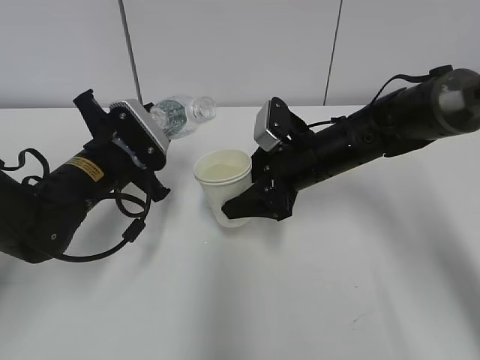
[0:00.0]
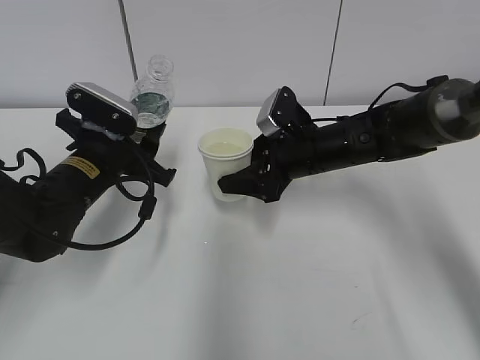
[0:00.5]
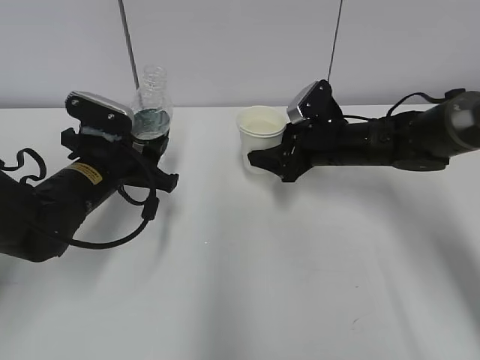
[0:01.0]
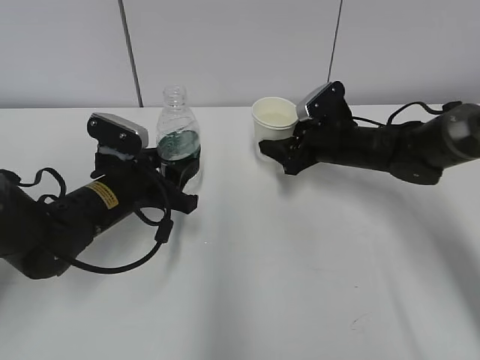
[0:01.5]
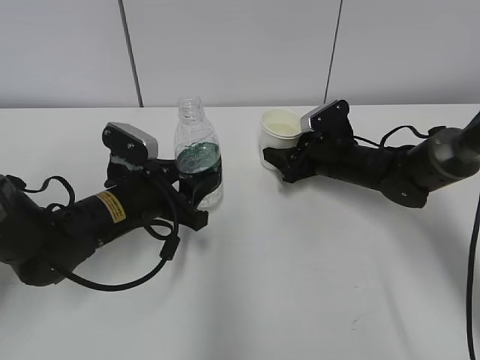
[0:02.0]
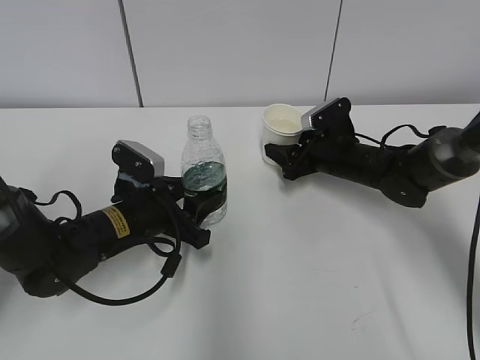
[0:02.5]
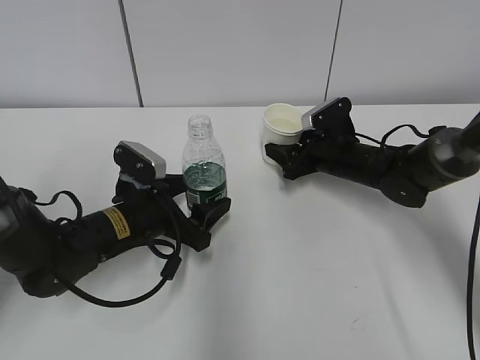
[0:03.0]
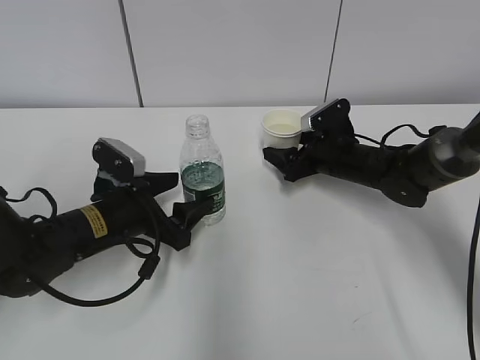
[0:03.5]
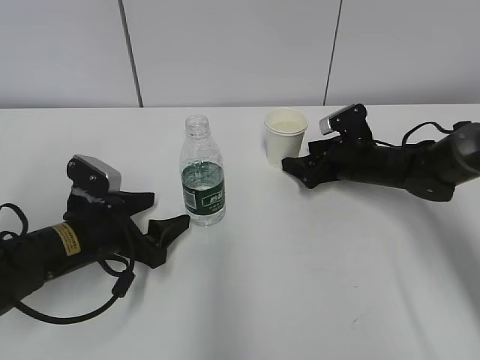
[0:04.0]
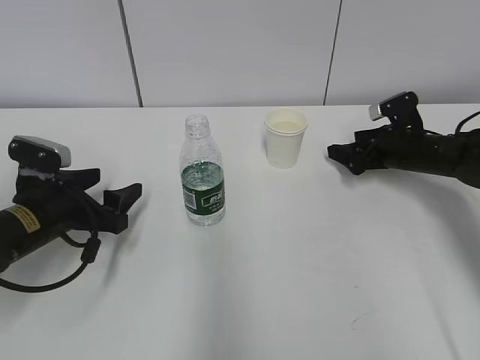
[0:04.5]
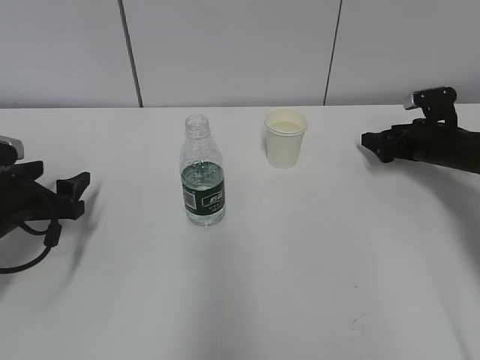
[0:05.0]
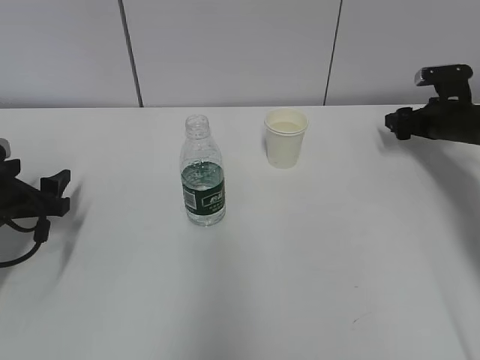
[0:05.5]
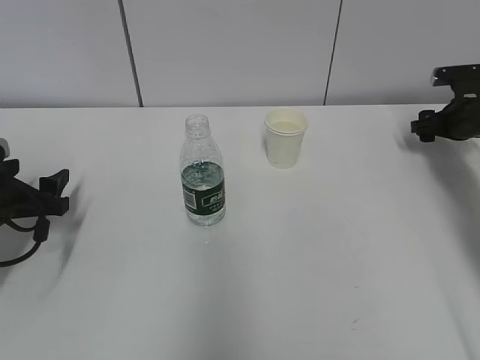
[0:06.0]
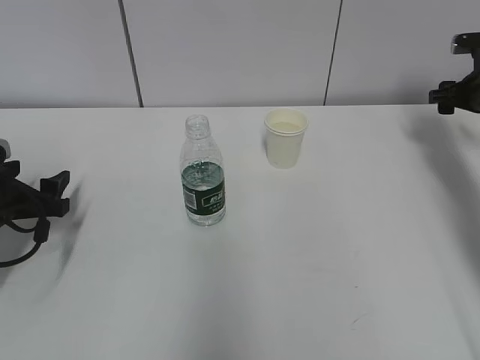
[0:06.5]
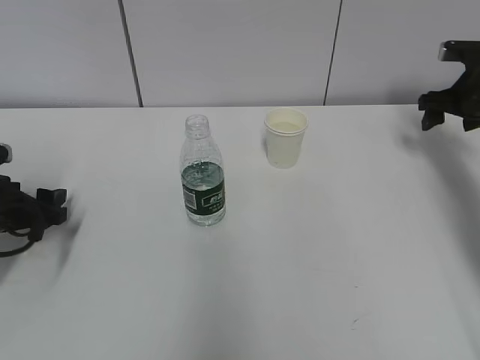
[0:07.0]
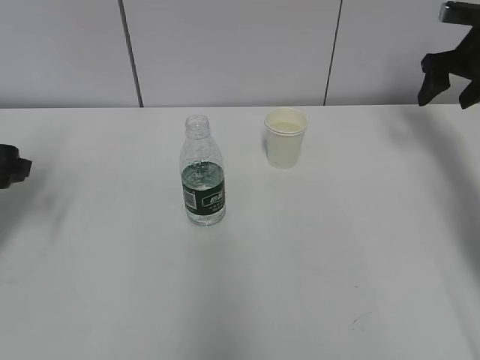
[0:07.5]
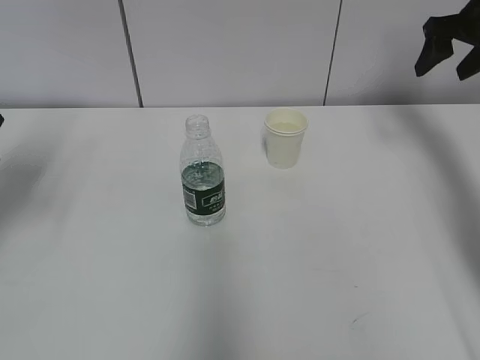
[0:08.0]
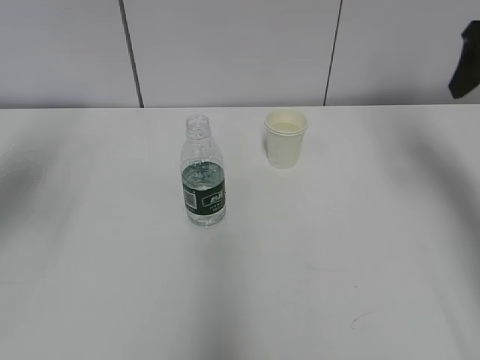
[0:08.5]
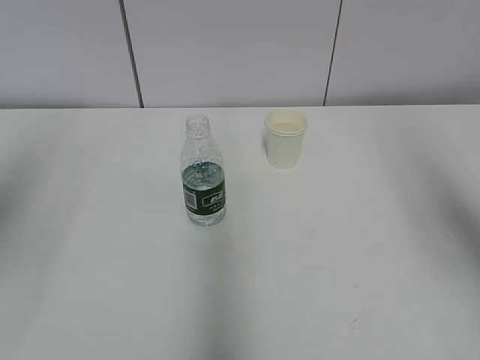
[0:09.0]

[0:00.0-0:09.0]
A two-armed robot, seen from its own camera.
0:00.0 to 0:02.0: The left gripper changes place by some 5 cm; the right gripper moves to the right, downward and forward, approximately 10 cm.
0:02.0 to 0:04.5: The left gripper goes approximately 10 cm to the left, and opens its fingers. The right gripper shifts about 10 cm to the right, and opens up.
0:04.5 to 0:07.0: The left gripper shifts roughly 10 cm to the left; the right gripper heads upward and to the right, covering about 15 cm.
0:07.0 to 0:09.0: The left gripper is displaced upward and backward by approximately 30 cm. Meanwhile the right gripper shifts about 35 cm backward and upward.

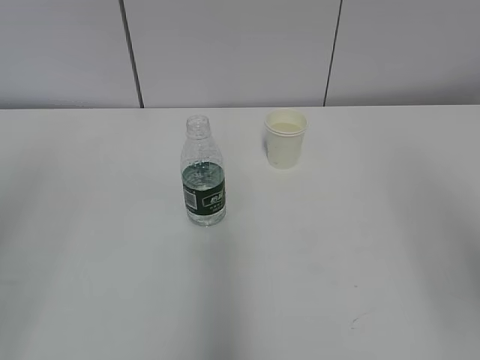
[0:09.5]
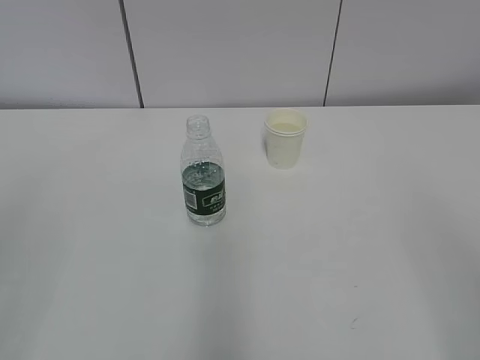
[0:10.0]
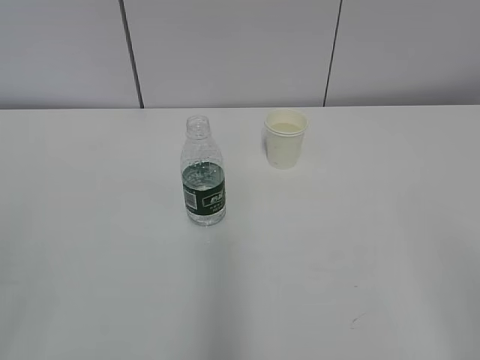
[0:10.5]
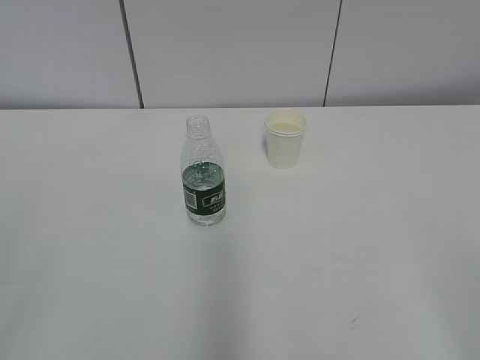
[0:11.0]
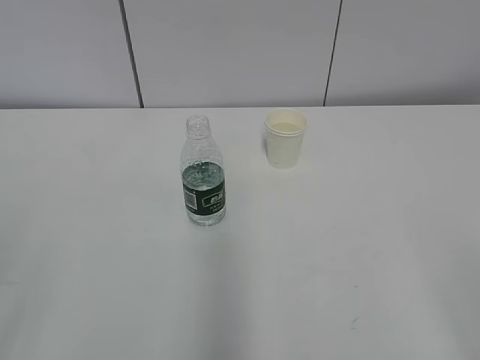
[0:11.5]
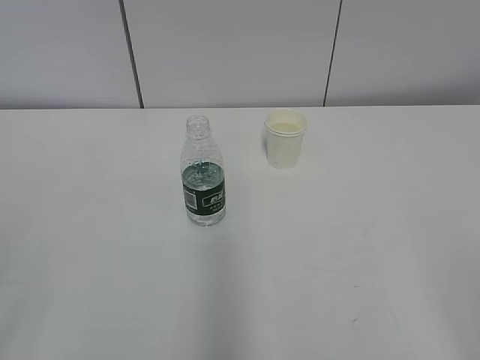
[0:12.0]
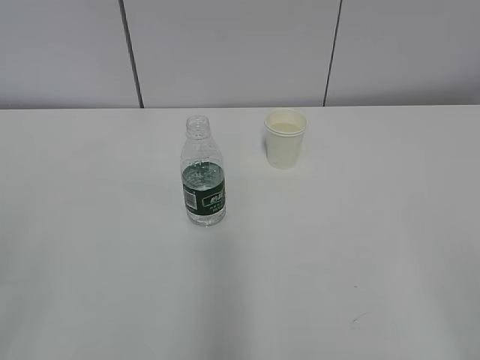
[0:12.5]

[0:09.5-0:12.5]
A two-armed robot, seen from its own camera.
0:11.0 to 0:12.5: Both grippers stay about where they are.

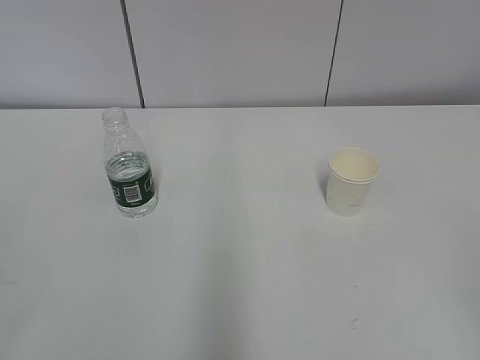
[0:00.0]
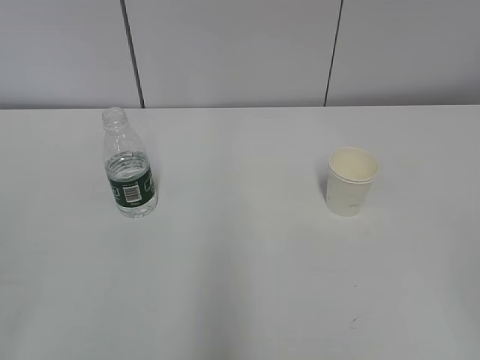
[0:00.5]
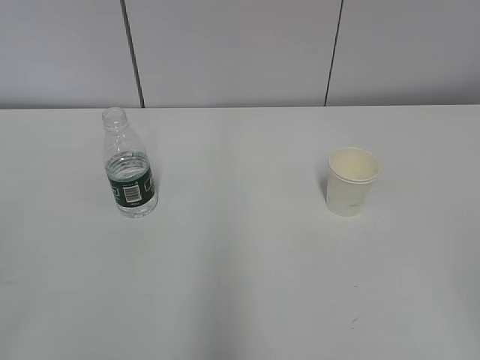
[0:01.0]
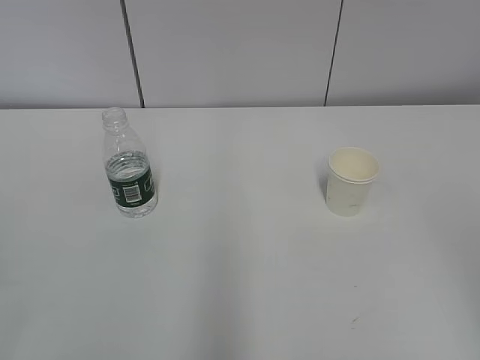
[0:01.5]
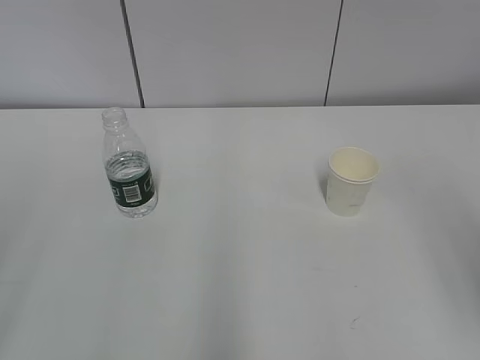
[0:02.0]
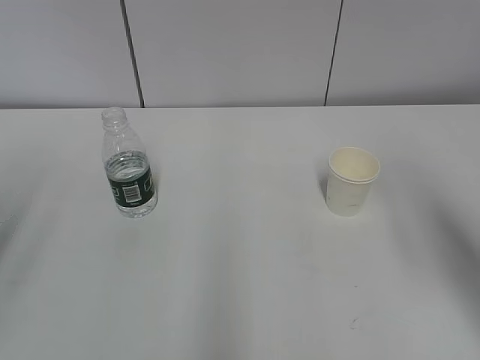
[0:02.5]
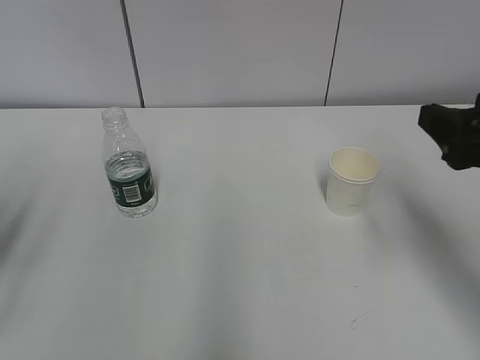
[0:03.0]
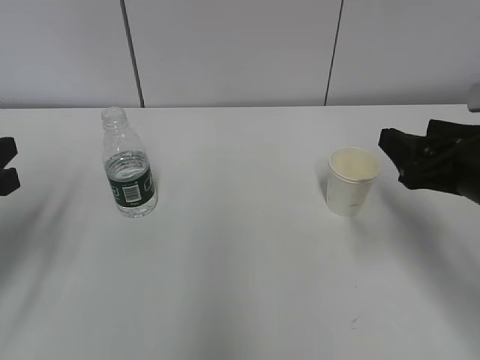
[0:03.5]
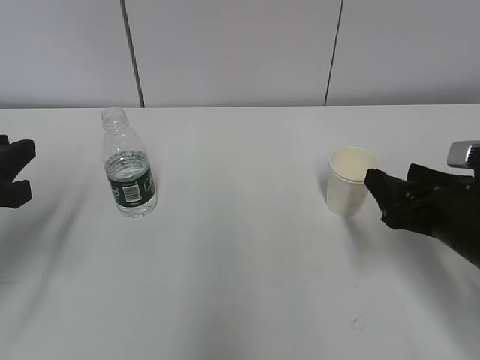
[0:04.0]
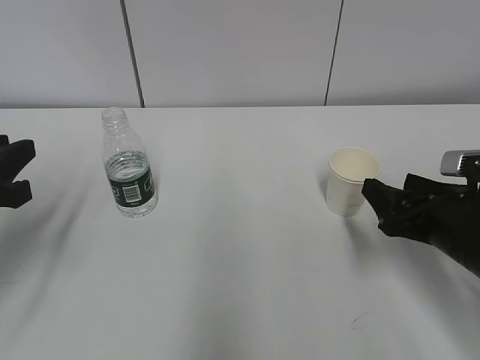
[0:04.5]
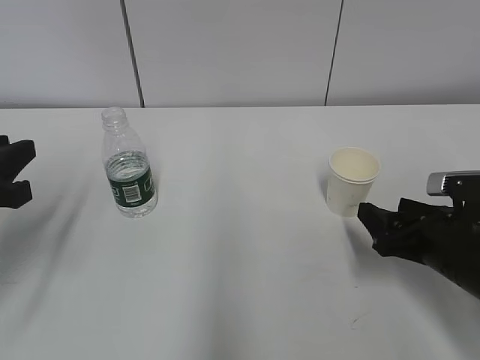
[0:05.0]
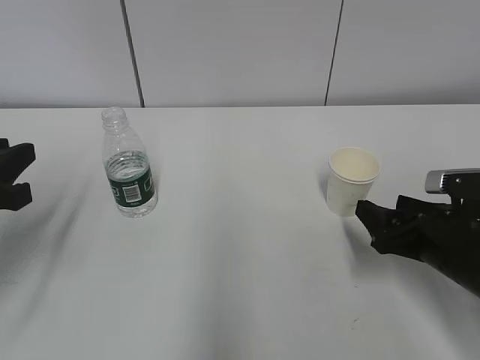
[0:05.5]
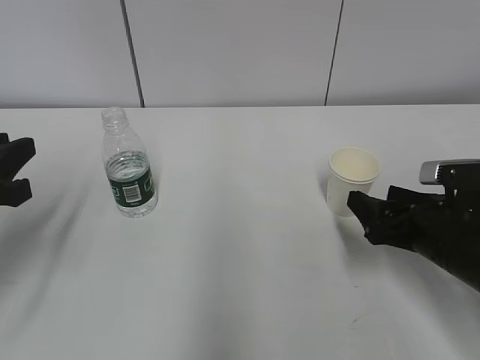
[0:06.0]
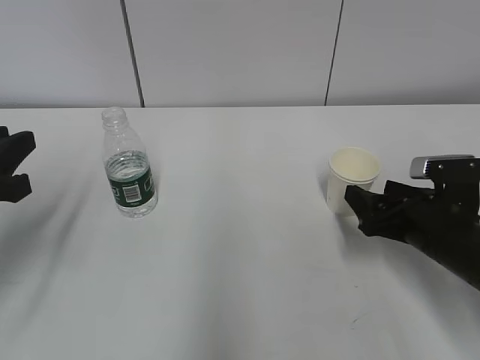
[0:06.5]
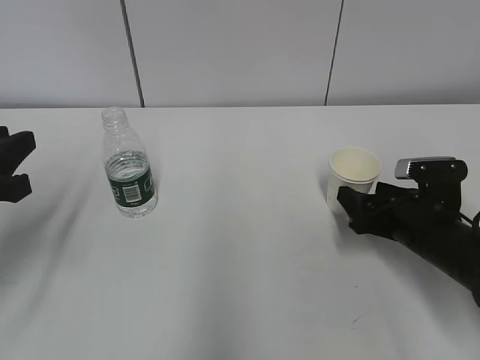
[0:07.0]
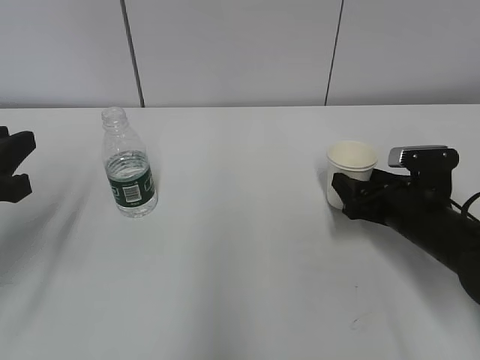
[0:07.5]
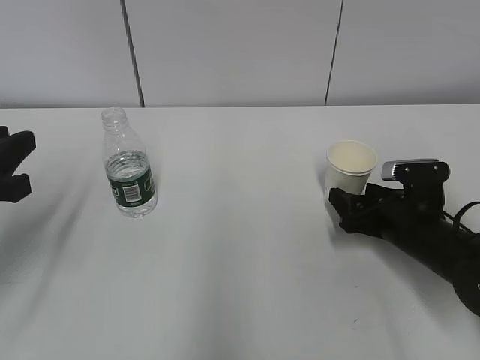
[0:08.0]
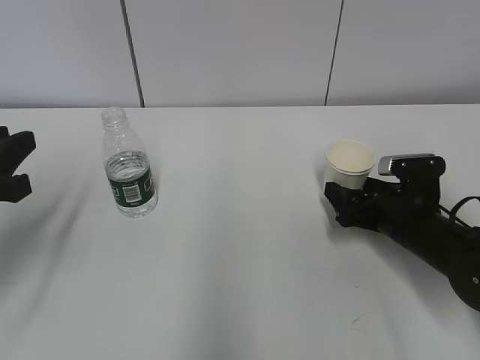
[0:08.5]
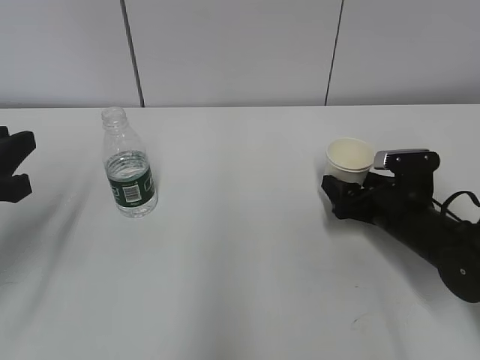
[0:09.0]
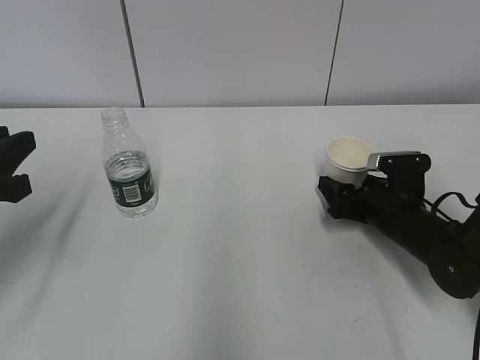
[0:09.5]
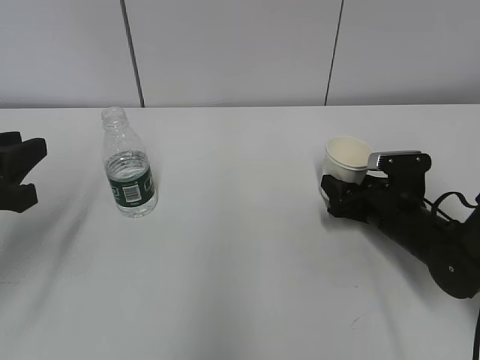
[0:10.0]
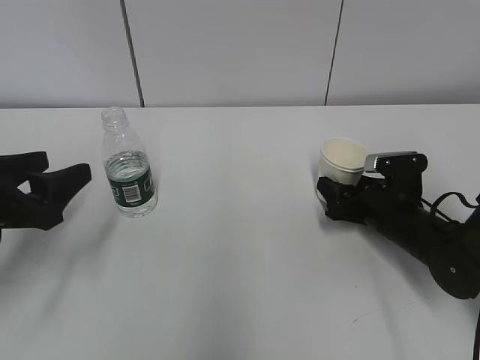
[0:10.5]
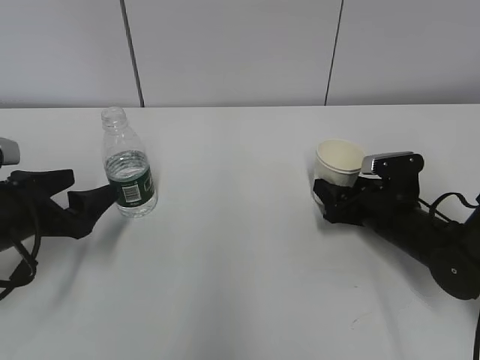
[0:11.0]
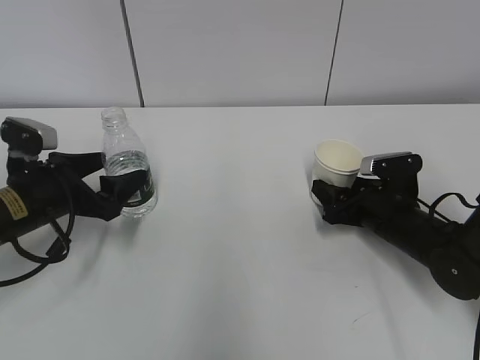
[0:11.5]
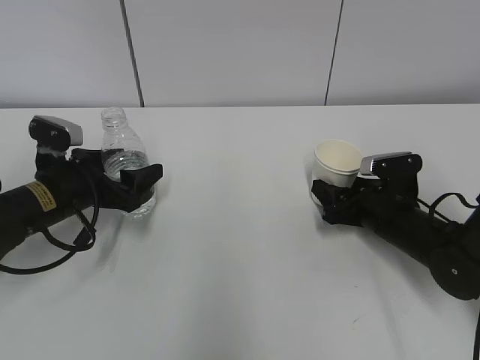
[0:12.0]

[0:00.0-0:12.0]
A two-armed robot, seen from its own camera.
Step, 0:00.0 to 0:08.5: Grab the paper cup with the right hand.
Step, 0:09.0 to 0:11.0: Grab the water bottle with the left hand.
0:02.0 to 0:04.0: The right gripper shifts roughly 25 cm downward and forward, while the left gripper heads forward and downward, covering about 20 cm.
0:04.0 to 0:06.0: The grippers make only small movements.
0:06.0 to 0:08.0: The right gripper is displaced forward by about 5 cm.
0:08.0 to 0:10.0: The right gripper closes.
0:10.0 to 0:12.0: The left gripper is displaced forward, downward and to the right by roughly 15 cm, and opens up.

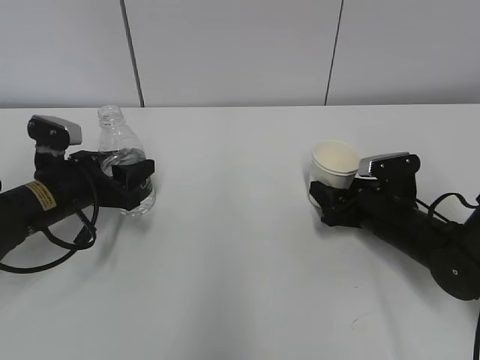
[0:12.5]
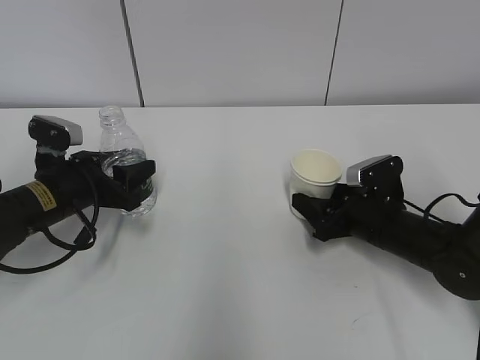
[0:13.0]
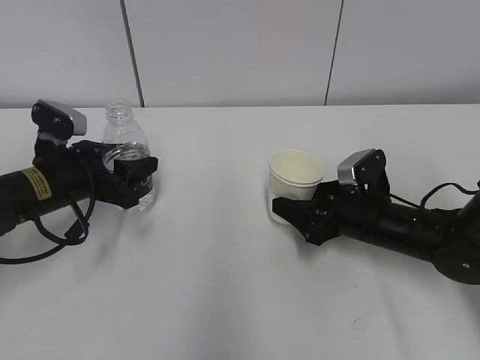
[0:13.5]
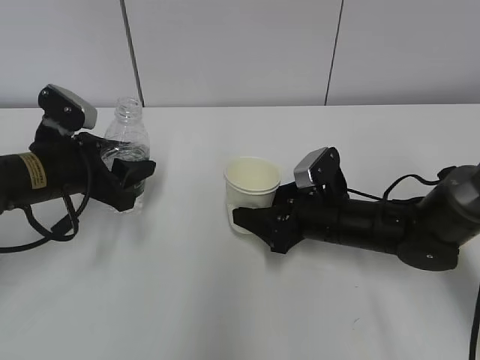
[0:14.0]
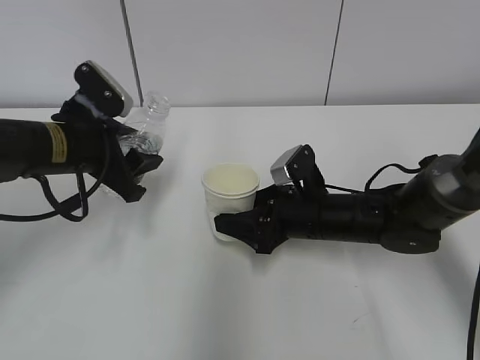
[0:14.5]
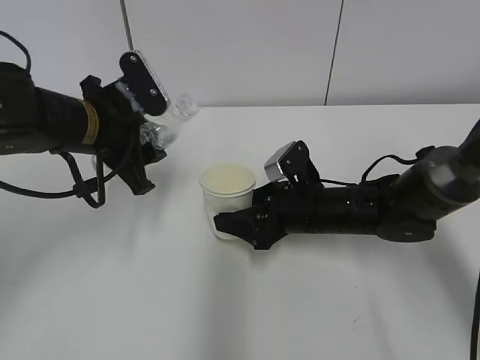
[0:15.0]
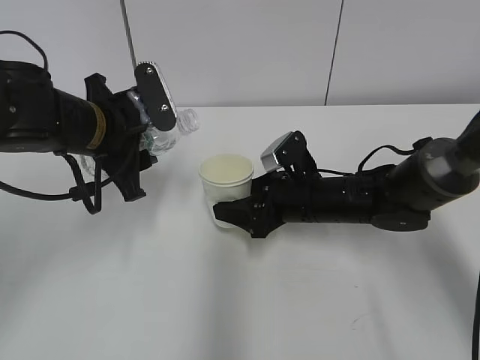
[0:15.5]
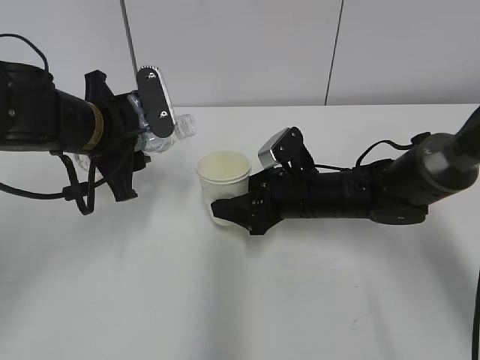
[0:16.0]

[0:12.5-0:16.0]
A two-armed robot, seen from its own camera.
Step, 0:12.5 to 0:14.5: Lift the paper cup with the right hand.
0:12.5 to 0:14.5: The left gripper travels upward by roughly 10 cm. The right gripper heads to the left, covering about 10 cm.
